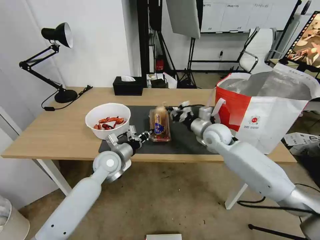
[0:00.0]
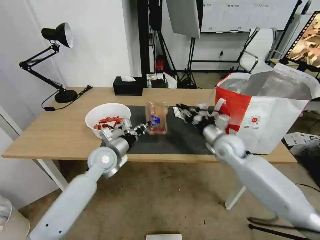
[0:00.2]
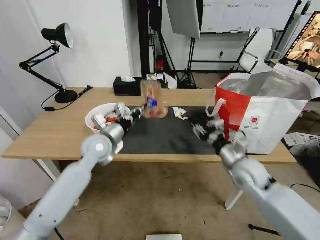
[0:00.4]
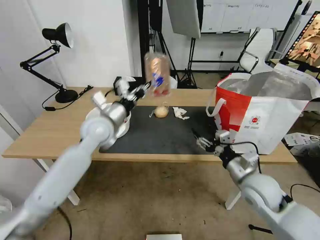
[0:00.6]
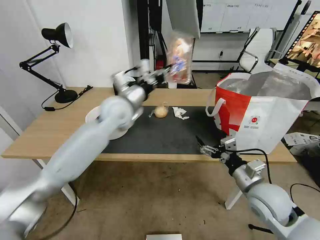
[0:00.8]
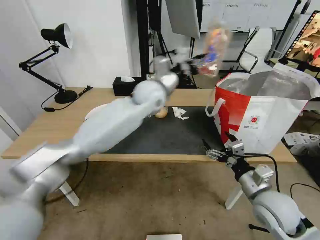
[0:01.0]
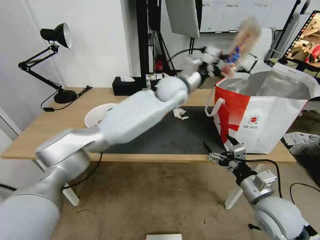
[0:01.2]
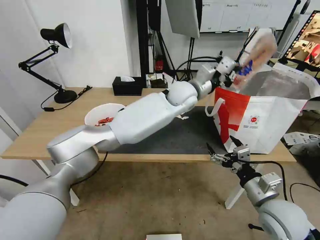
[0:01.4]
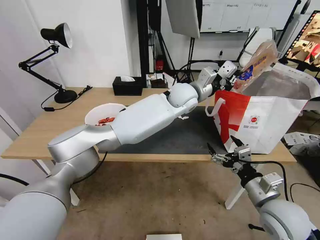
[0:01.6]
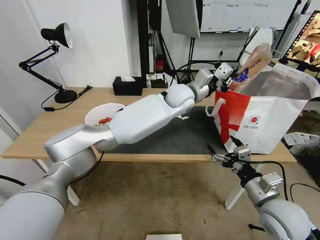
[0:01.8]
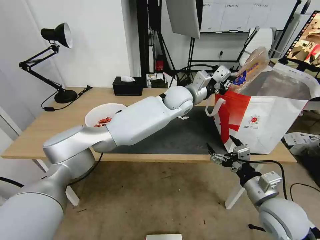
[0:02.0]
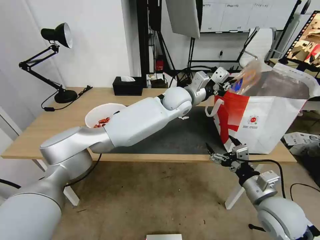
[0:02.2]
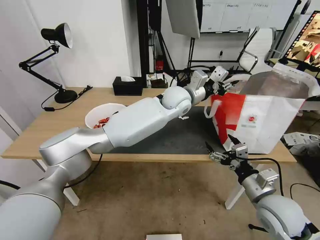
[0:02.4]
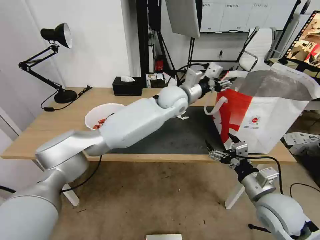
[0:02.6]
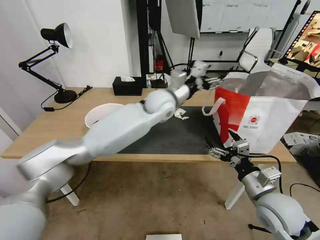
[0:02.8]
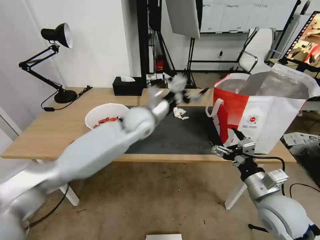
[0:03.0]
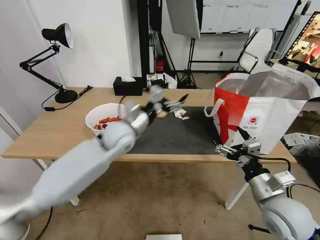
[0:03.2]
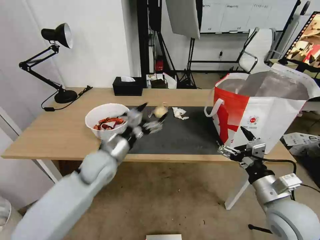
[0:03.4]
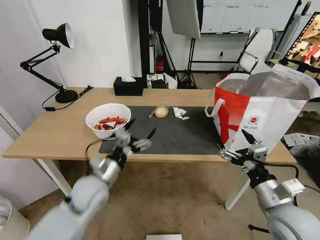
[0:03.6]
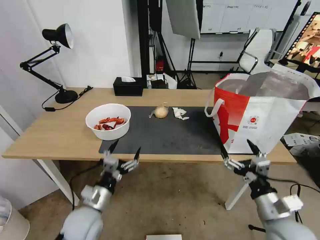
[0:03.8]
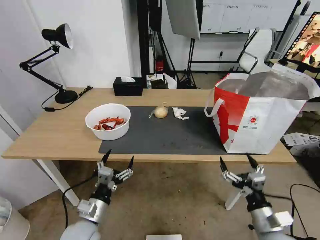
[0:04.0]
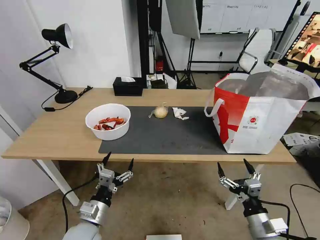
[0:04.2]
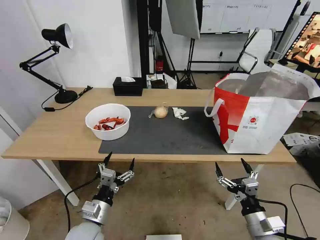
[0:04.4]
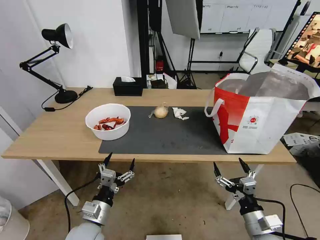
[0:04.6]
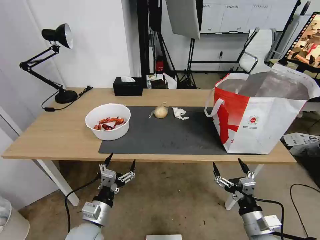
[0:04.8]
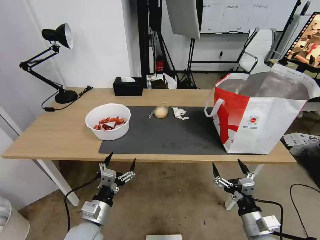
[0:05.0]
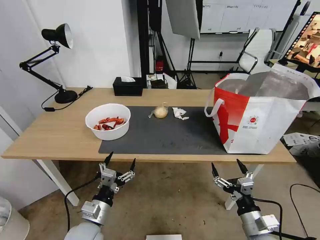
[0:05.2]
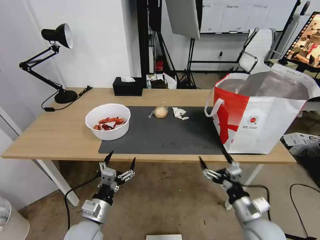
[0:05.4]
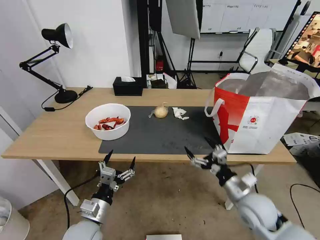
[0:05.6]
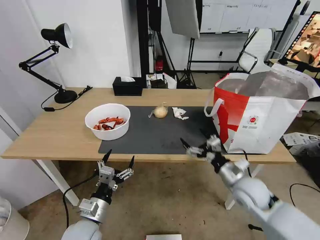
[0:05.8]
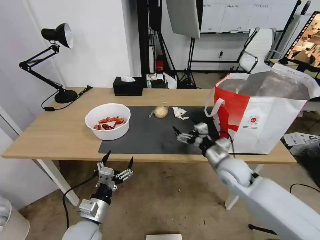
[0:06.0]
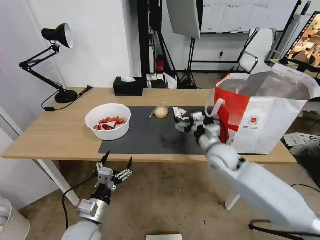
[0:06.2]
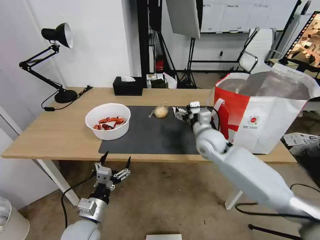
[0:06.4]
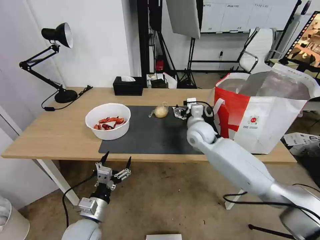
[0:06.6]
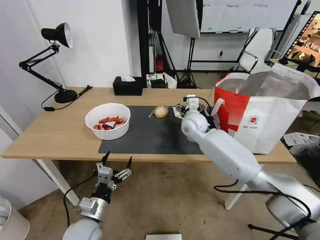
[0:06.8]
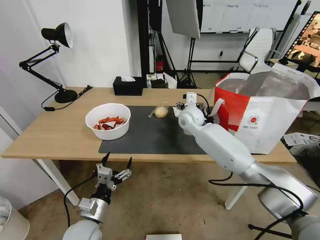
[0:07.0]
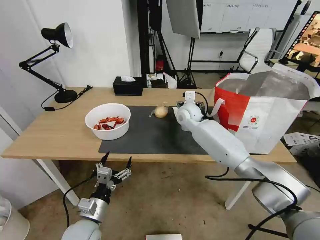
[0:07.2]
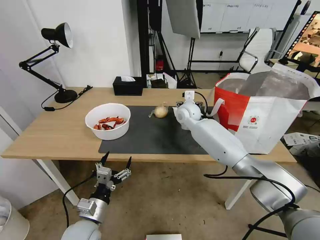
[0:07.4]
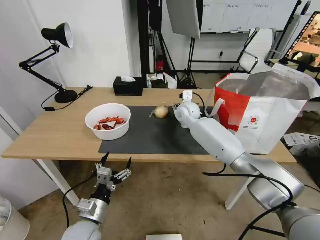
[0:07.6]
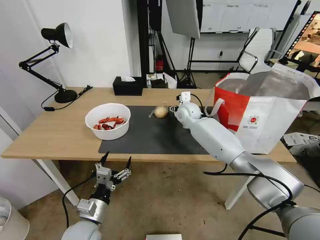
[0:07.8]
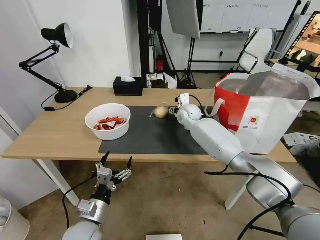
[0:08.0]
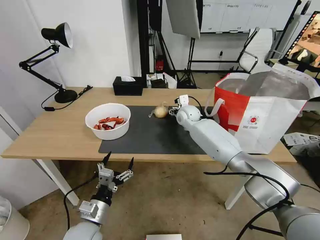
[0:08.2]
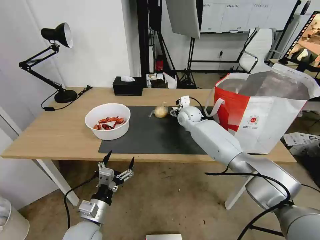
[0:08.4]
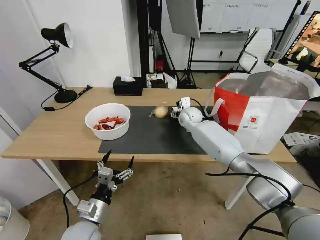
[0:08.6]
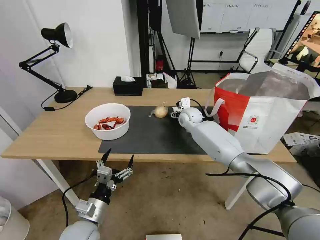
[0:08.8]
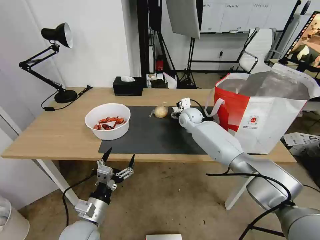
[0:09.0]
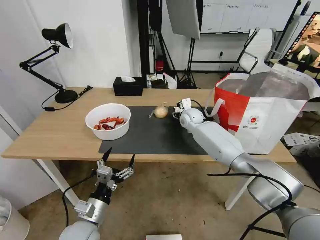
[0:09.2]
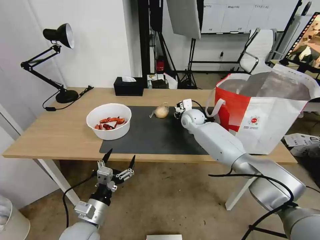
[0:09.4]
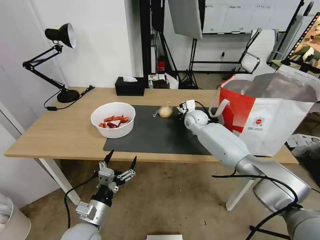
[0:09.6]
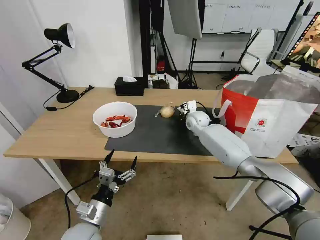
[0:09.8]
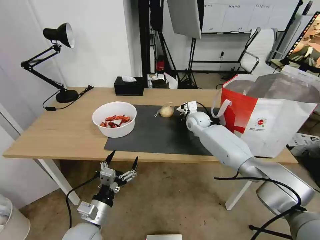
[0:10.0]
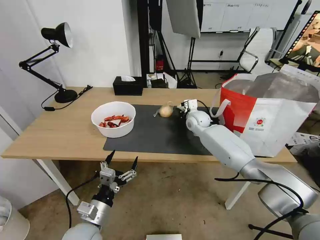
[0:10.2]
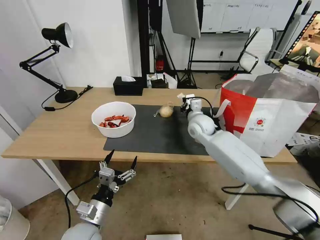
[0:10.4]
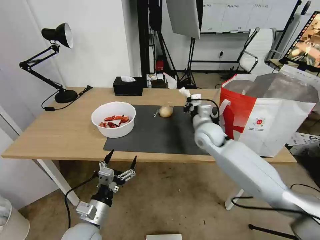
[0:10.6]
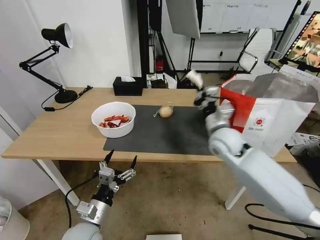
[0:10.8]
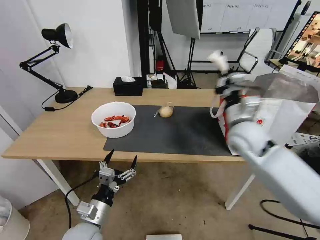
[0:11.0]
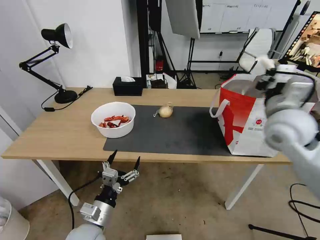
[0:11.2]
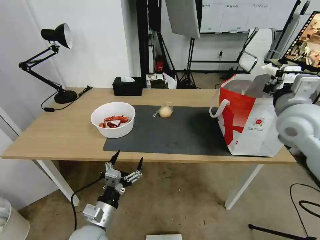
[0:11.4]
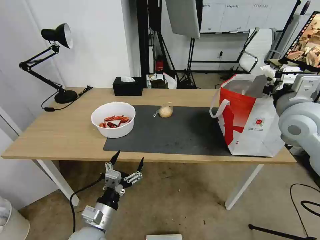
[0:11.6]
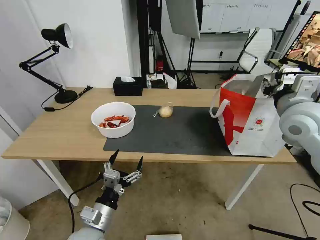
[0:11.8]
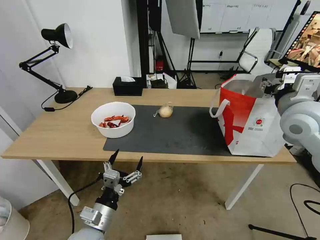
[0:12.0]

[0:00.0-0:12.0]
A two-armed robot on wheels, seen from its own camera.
Task of the whole recording: Pick up the trash from the table and place it into the takeout bag.
0:00.0 to 0:01.6: The right gripper heads backward, covering roughly 25 cm, and opens. Meanwhile the left gripper shifts approximately 35 cm to the right, upward and forward.
0:01.6 to 0:03.0: The left gripper moves to the left and backward, approximately 15 cm, and opens.
0:03.0 to 0:04.4: The left gripper is displaced backward, downward and to the left by roughly 35 cm, while the right gripper goes approximately 15 cm downward and backward.
0:04.4 to 0:06.0: The right gripper shifts about 20 cm forward.
0:06.0 to 0:07.6: The right gripper heads forward and to the left, covering approximately 25 cm.
0:07.6 to 0:09.0: The grippers move only a little.
0:09.0 to 0:10.4: The right gripper is displaced backward by some 5 cm, and closes up.
0:10.4 to 0:12.0: The right gripper heads to the right, upward and backward, covering approximately 30 cm, and opens up.

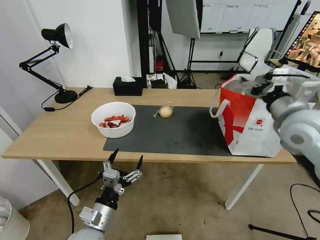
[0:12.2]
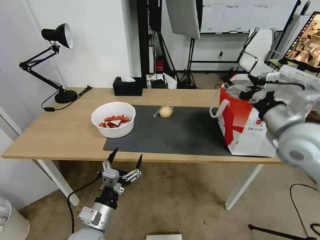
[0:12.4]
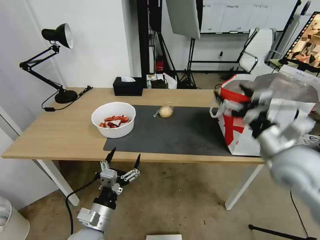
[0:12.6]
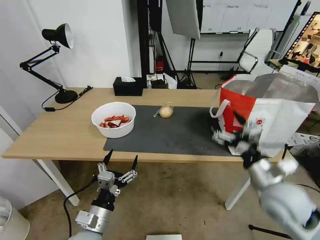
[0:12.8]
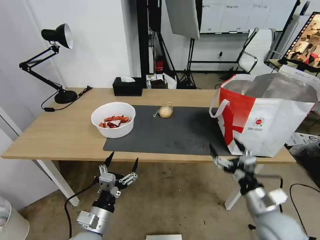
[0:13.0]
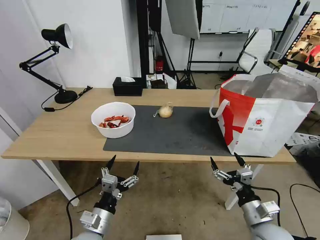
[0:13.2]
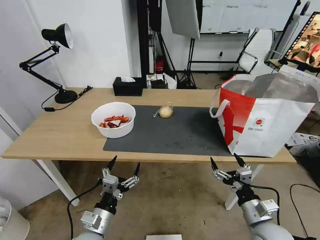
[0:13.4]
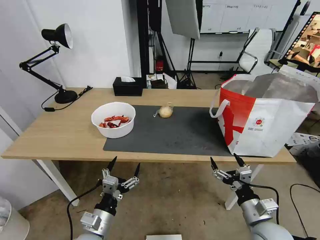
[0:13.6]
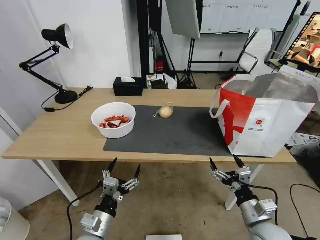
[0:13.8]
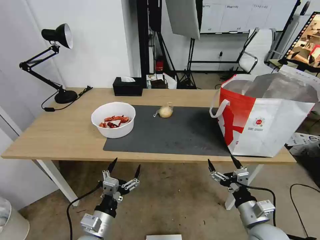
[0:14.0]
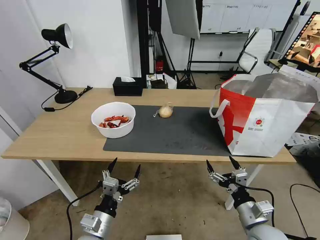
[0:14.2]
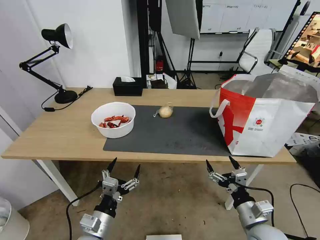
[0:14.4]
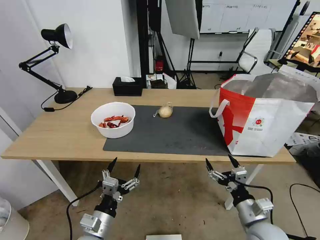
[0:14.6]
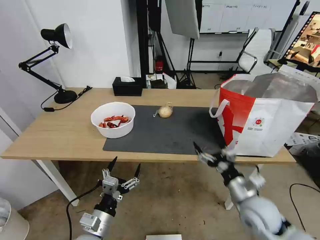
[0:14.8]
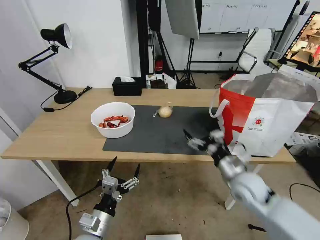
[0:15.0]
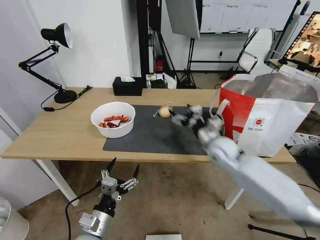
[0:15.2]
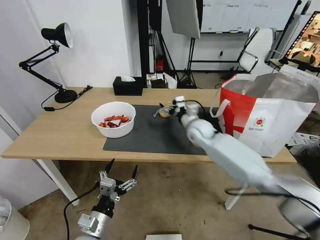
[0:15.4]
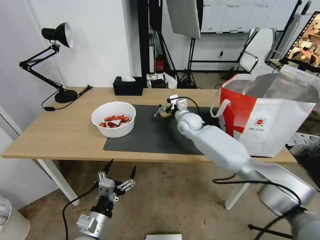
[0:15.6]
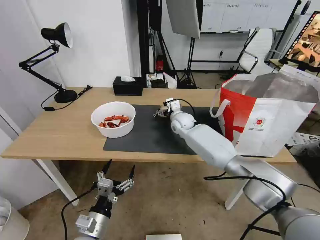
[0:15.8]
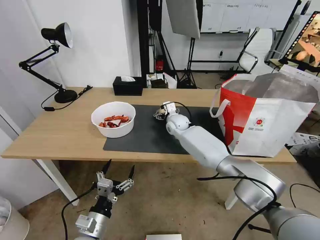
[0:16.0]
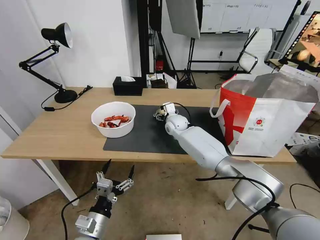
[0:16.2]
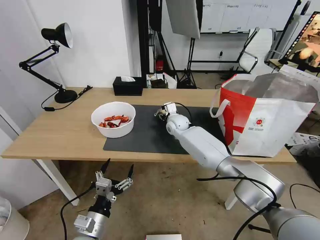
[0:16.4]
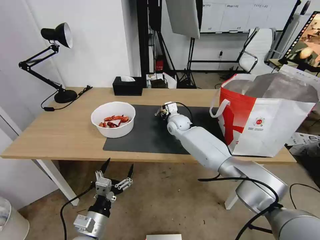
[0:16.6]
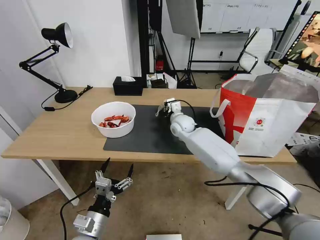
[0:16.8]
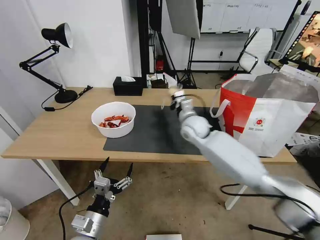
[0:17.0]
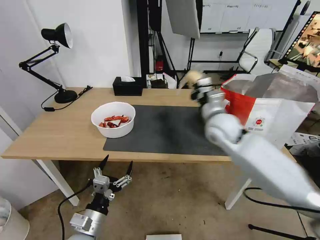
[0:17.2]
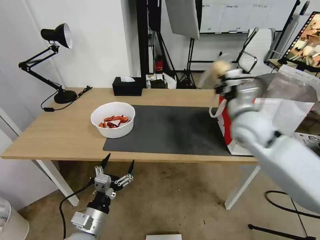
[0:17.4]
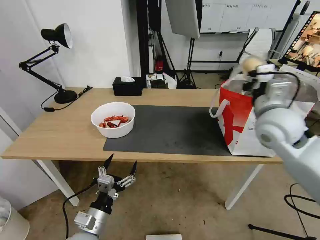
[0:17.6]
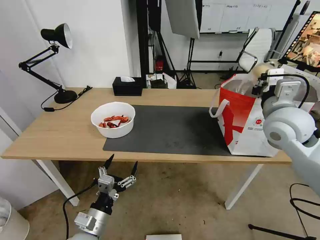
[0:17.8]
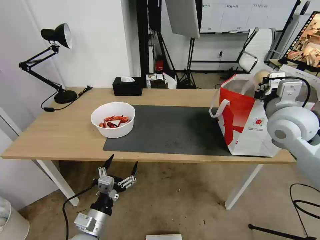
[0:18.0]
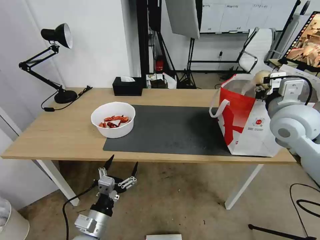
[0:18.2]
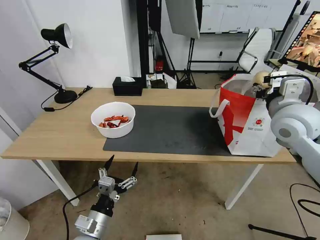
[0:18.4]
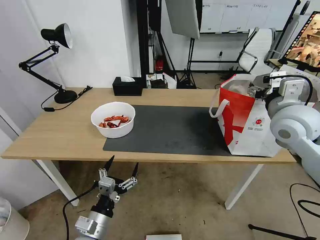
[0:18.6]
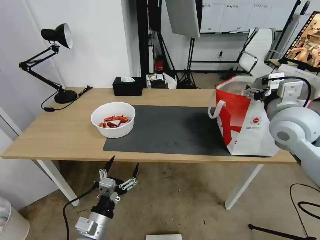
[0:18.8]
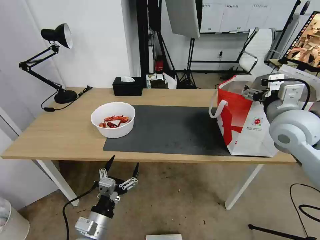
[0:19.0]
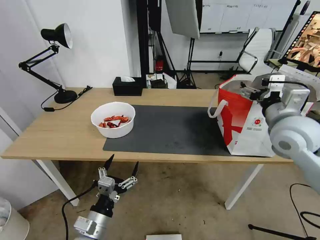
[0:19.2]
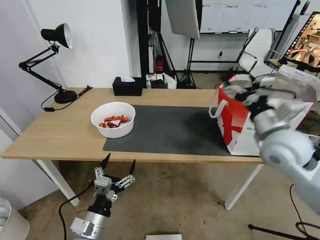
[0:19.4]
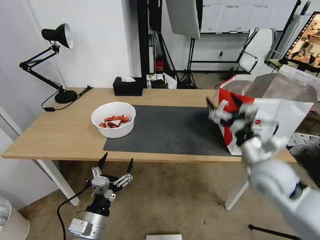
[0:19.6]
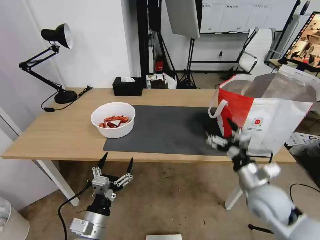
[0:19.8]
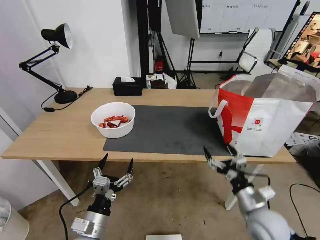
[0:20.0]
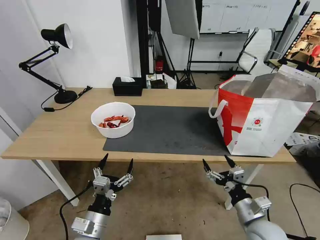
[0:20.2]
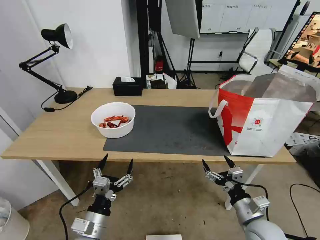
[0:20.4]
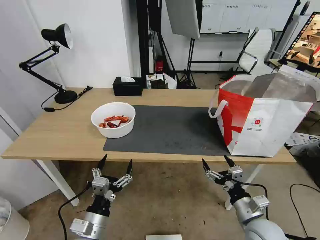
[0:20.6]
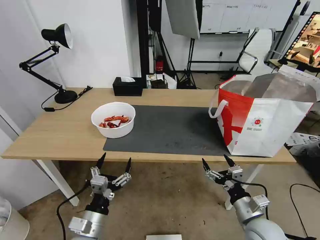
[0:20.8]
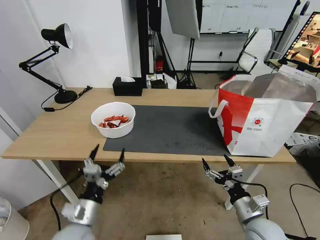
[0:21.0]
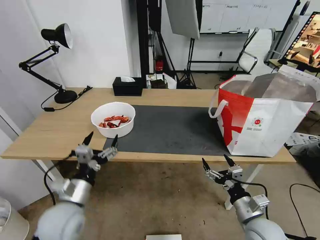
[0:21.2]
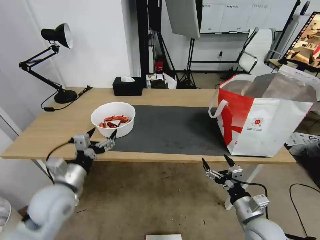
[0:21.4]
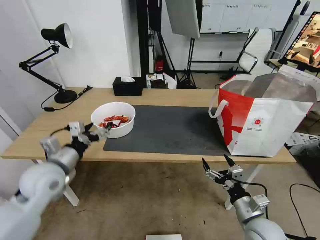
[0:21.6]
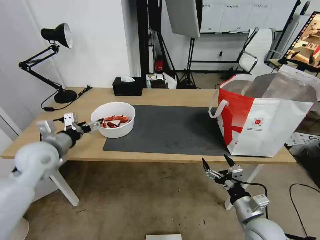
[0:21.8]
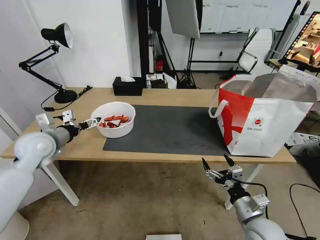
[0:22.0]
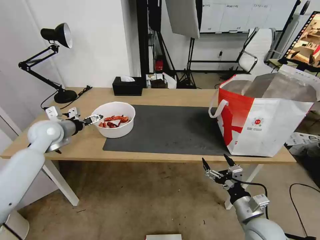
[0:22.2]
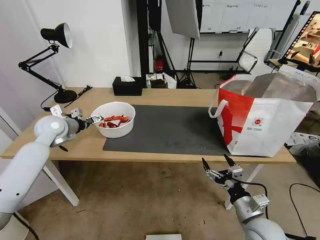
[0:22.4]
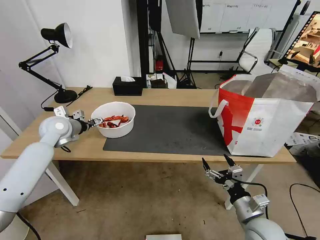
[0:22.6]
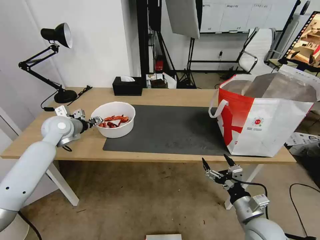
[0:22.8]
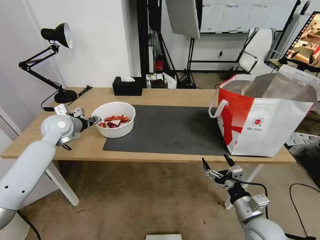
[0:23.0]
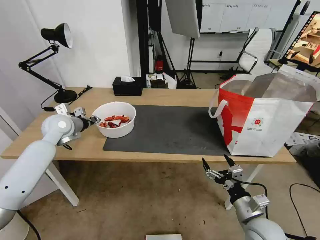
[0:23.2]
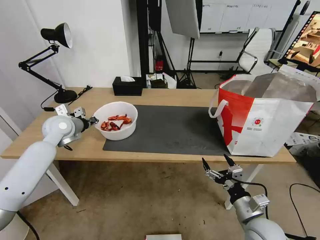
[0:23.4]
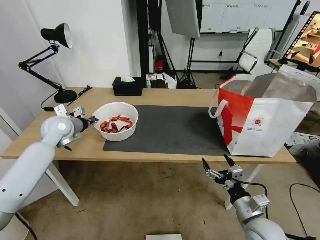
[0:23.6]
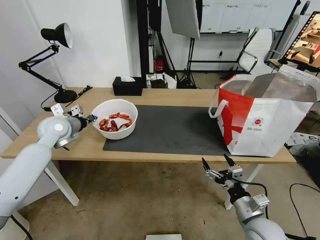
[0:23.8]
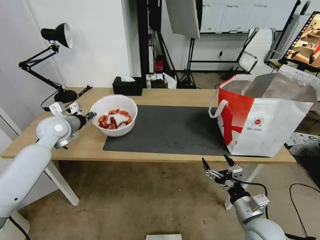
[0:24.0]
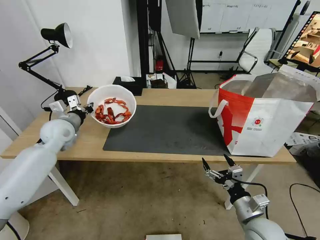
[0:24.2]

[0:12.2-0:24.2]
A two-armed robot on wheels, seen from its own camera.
Task of the whole recording: Pick up the trash from the table and place it into the takeout bag.
0:12.2 to 0:13.8: The right gripper heads downward and backward, covering roughly 30 cm.
0:13.8 to 0:15.2: The right gripper goes approximately 25 cm forward.
0:15.2 to 0:16.6: The right gripper shifts about 20 cm forward and to the left, and closes up.
0:16.6 to 0:18.2: The right gripper shifts about 40 cm to the right, backward and upward.
0:18.2 to 0:19.8: The right gripper moves downward and backward, some 20 cm, and opens.
0:19.8 to 0:21.2: The right gripper shifts roughly 10 cm downward and backward. Meanwhile the left gripper travels forward and upward by some 10 cm.
0:21.2 to 0:22.6: The left gripper heads forward and to the left, covering about 30 cm.
0:22.6 to 0:24.2: The left gripper closes its fingers.
